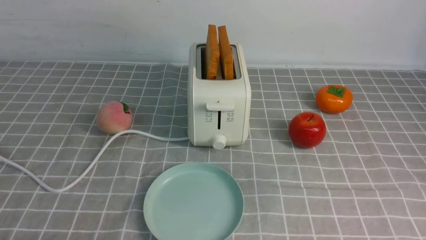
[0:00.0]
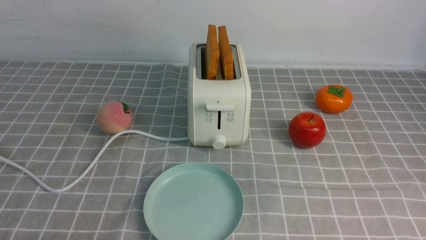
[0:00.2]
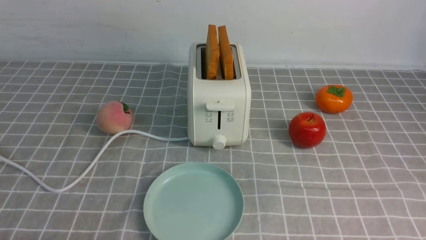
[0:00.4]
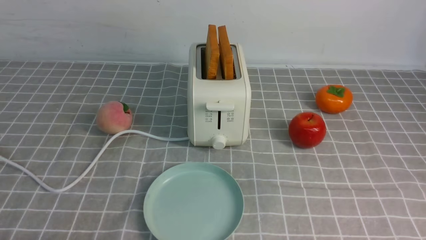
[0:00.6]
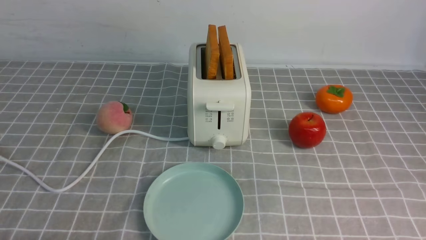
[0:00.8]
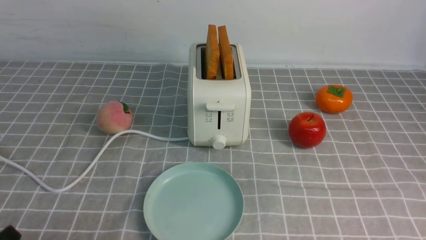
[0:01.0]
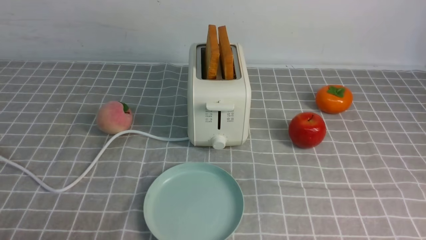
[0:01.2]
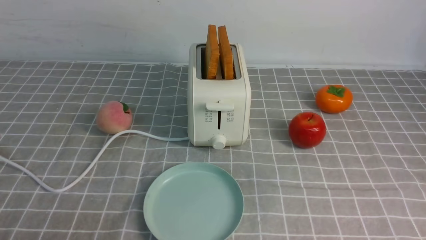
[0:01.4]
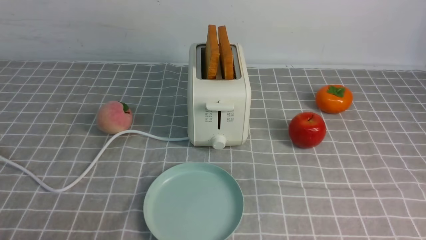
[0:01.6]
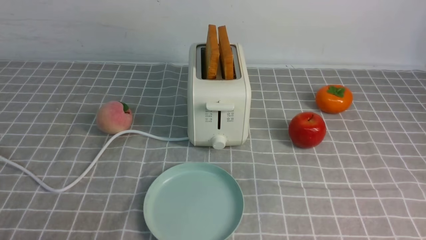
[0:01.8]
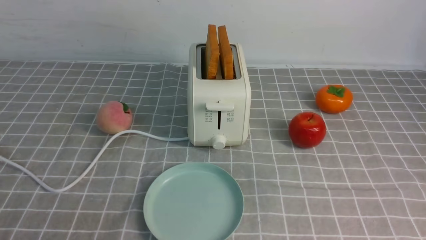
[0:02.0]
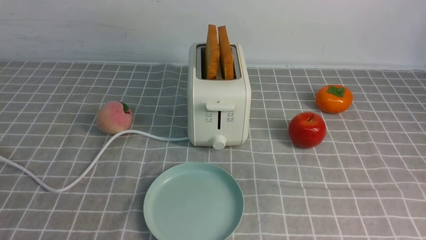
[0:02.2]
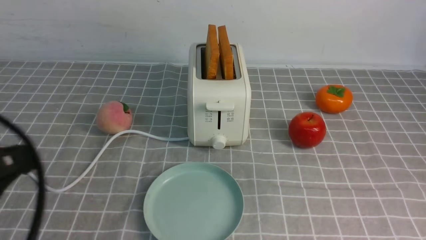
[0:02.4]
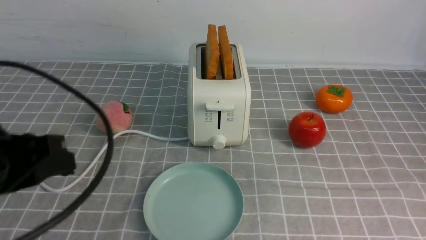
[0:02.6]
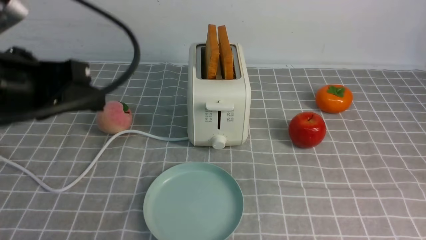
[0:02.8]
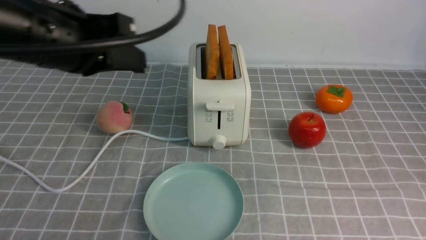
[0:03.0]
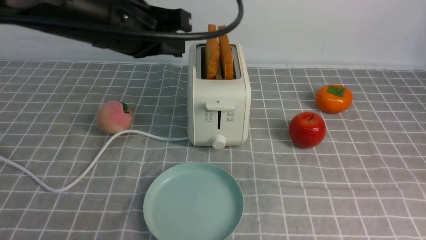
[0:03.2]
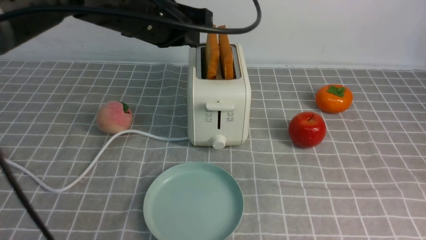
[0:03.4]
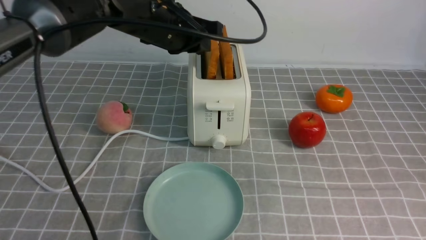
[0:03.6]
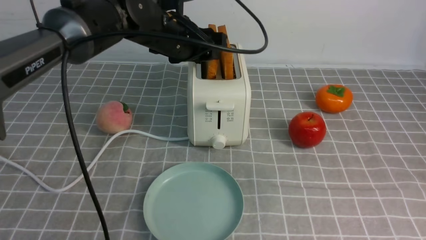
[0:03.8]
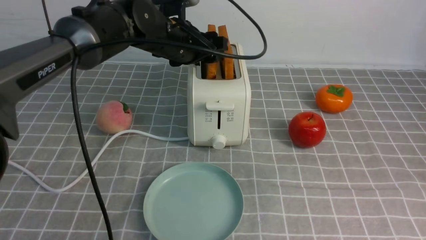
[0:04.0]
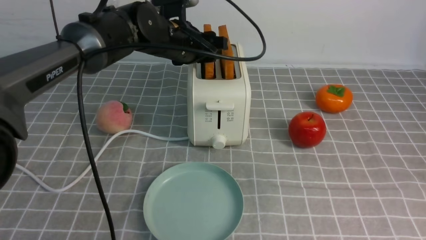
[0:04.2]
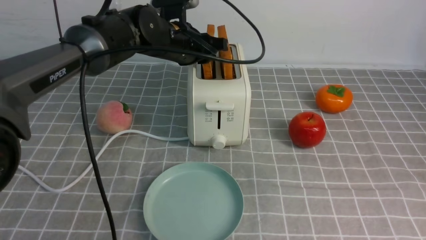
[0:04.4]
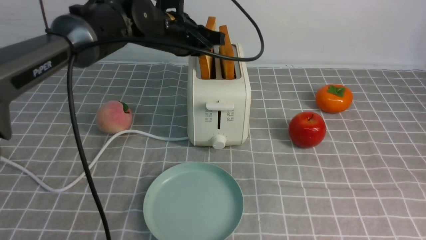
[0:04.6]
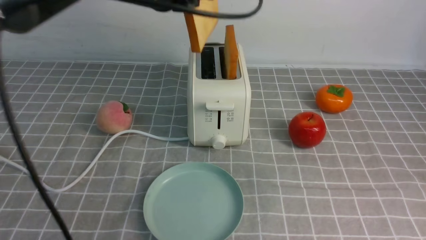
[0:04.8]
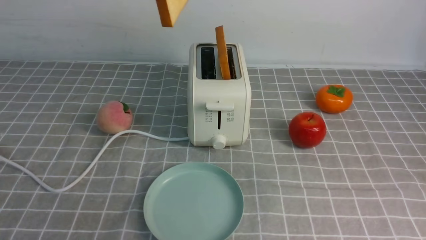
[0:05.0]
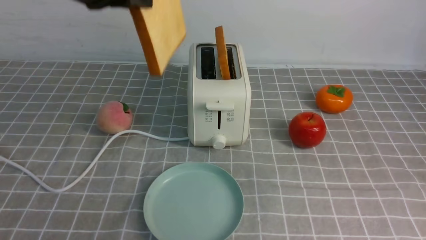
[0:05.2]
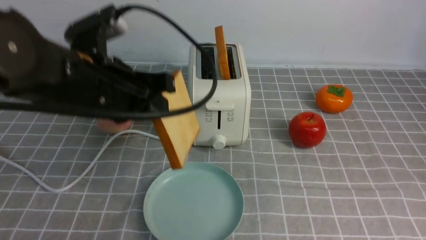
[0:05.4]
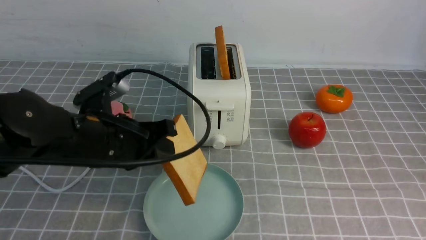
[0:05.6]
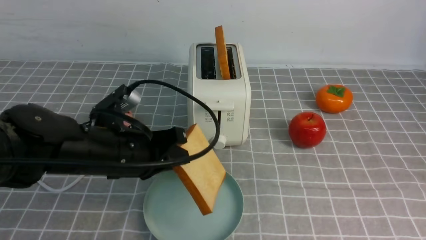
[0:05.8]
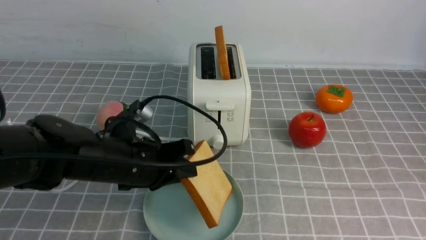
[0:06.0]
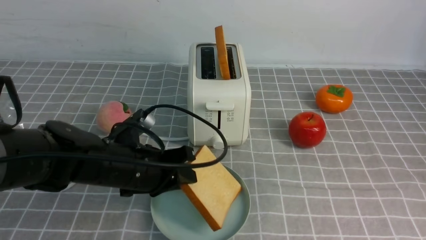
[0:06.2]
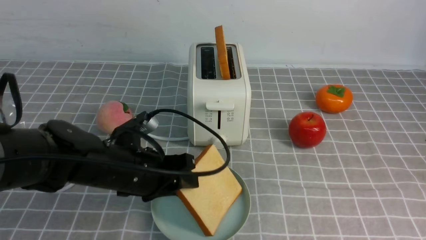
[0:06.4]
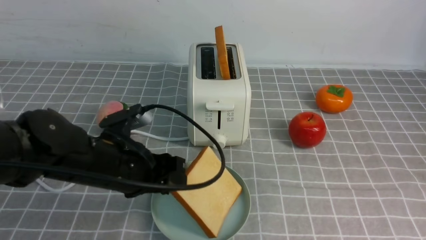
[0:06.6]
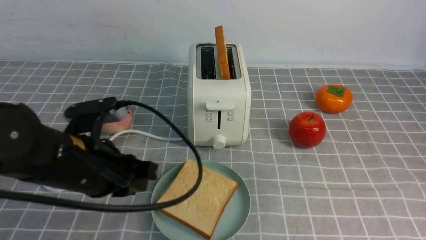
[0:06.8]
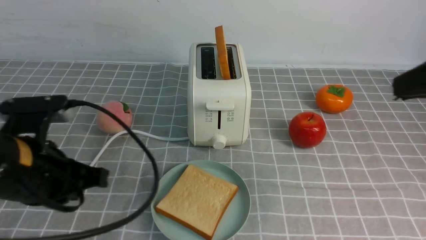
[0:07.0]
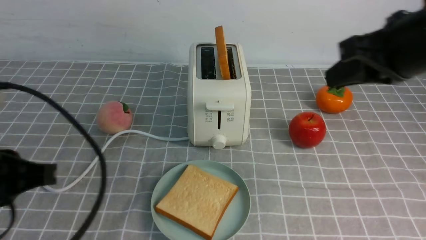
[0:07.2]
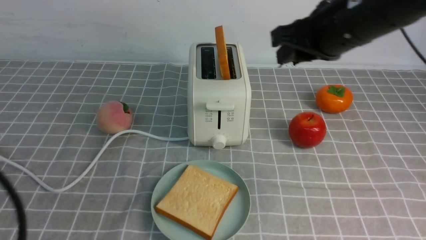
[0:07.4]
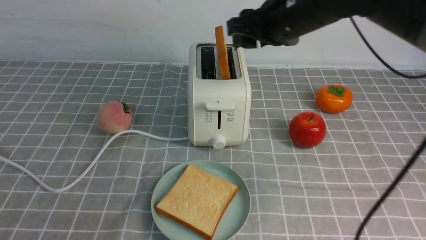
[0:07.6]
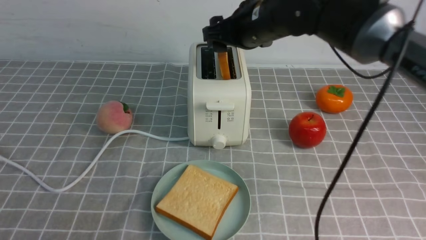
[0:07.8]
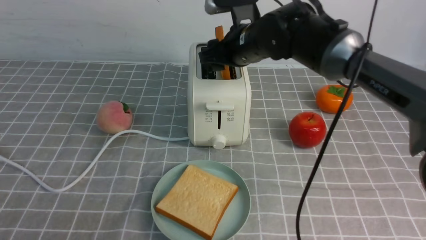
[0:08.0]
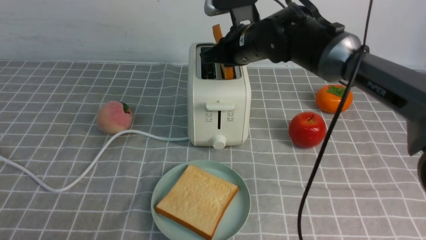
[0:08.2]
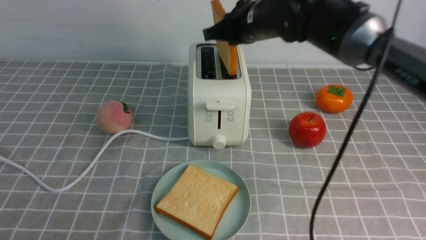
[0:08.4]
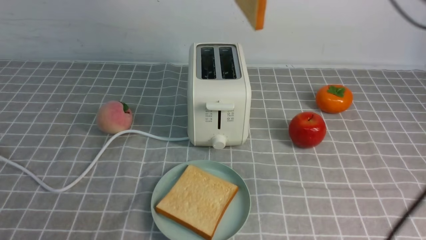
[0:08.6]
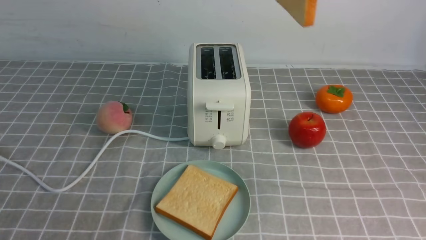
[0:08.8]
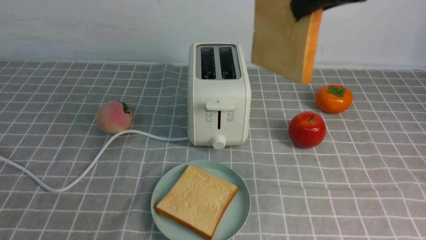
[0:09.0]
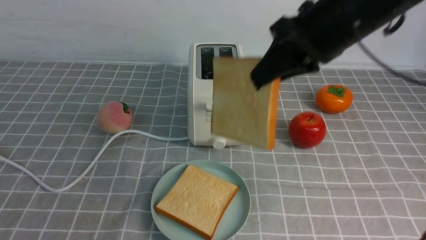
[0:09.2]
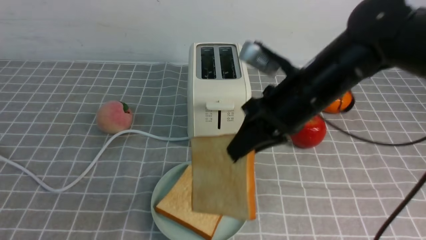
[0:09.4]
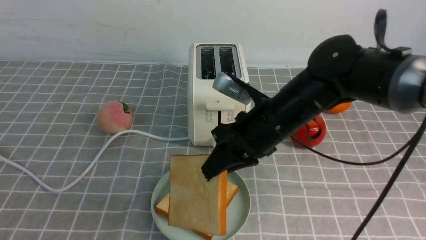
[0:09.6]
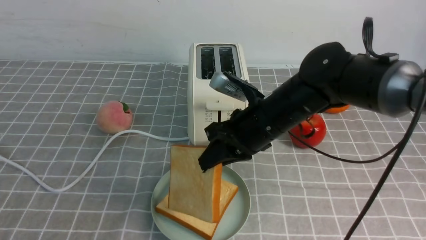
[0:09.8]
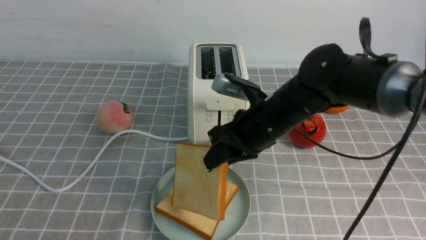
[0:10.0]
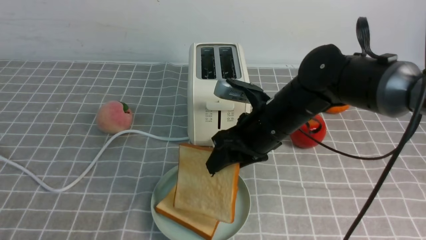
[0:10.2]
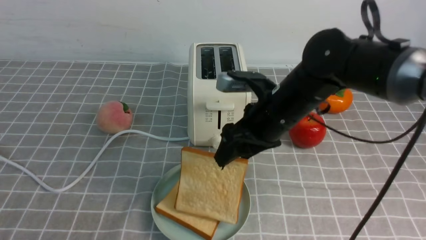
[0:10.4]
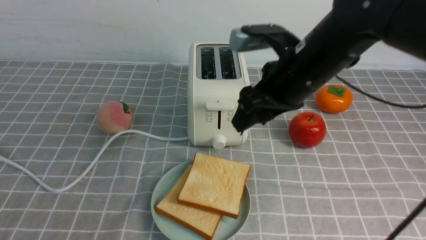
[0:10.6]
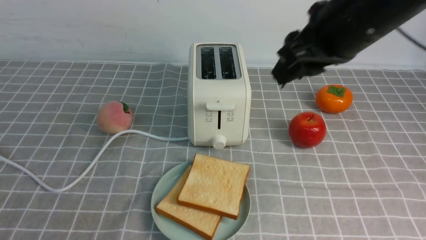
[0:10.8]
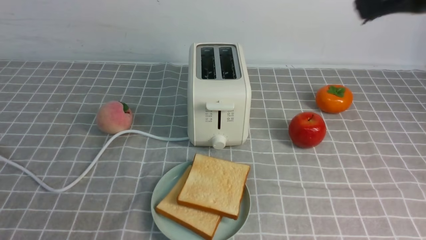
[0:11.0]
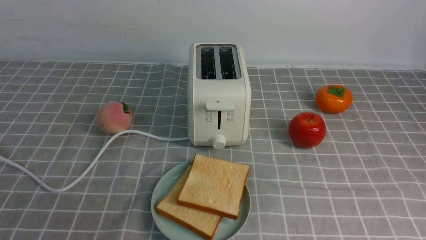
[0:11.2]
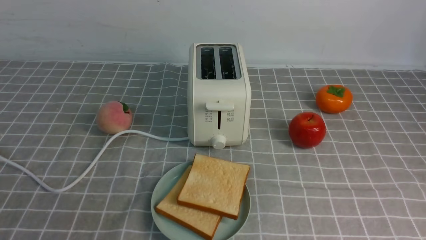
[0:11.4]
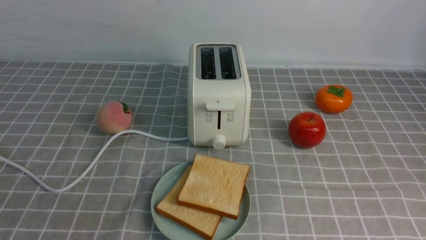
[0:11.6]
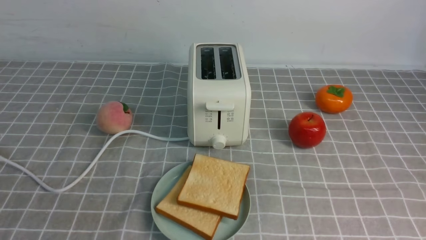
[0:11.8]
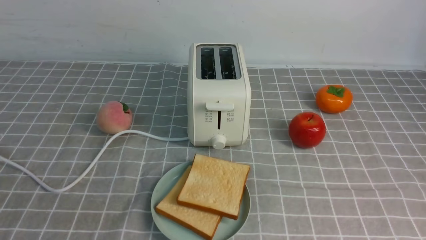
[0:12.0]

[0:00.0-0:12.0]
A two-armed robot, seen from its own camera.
Task of the whole recording: take toasted bread from bread machine on grey coffee table place on plate.
Step, 0:00.0 to 0:04.8: use the left arm to take out a slice of bread.
Step, 0:05.0 to 0:06.8: use the left arm to put a slice of bread into the empty plate.
Step, 0:07.0 to 0:08.6: use the right arm to take out a slice of bread.
Step, 0:08.8 to 0:10.6: use the right arm to put a slice of bread into the plate.
0:01.6 to 0:03.0: The left gripper moves forward, upward and to the right, roughly 30 cm, and closes up. The right gripper is displaced upward by some 20 cm, and closes.
0:03.0 to 0:04.4: The left gripper goes approximately 20 cm forward, to the right and downward, and opens its fingers.
0:04.4 to 0:06.0: The left gripper is displaced backward and downward by roughly 20 cm.
0:06.0 to 0:07.6: The left gripper shifts about 25 cm backward, to the left and upward, and opens, then closes again. Meanwhile the right gripper goes some 30 cm forward and to the left, and opens its fingers.
0:07.6 to 0:09.0: The right gripper moves backward and upward, some 10 cm, and closes its fingers.
0:09.0 to 0:10.4: The right gripper goes some 15 cm downward, and opens up.
0:10.4 to 0:12.0: The right gripper moves backward and to the right, roughly 35 cm, and closes up.

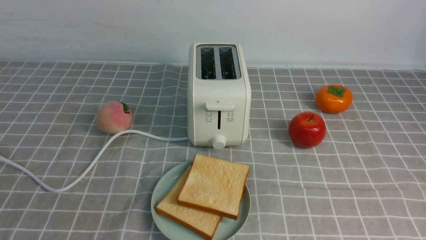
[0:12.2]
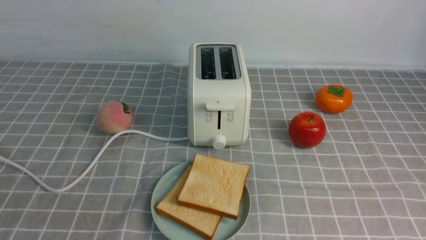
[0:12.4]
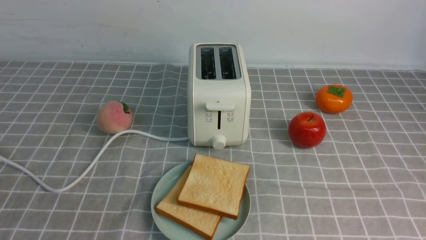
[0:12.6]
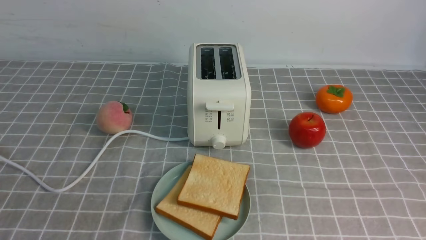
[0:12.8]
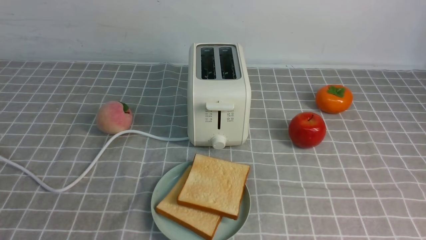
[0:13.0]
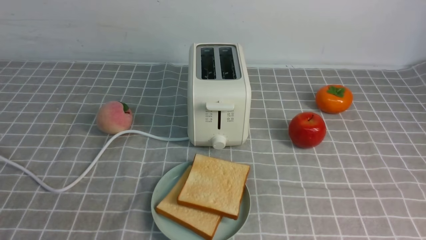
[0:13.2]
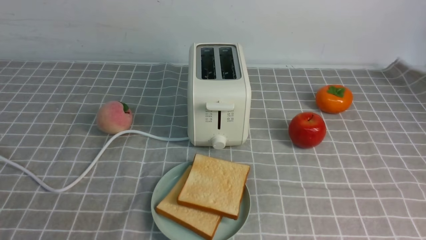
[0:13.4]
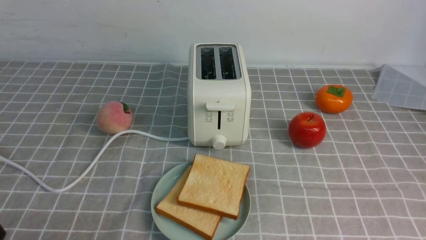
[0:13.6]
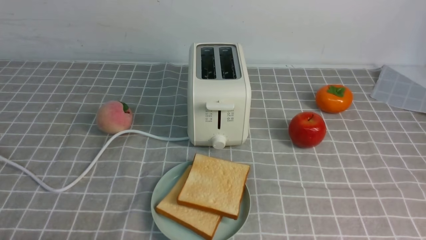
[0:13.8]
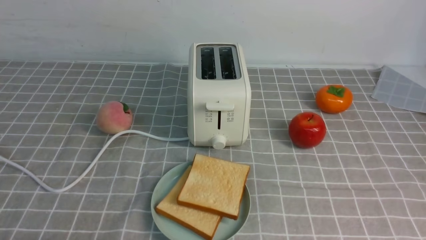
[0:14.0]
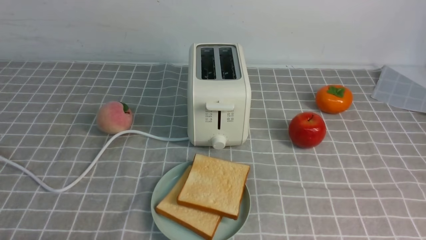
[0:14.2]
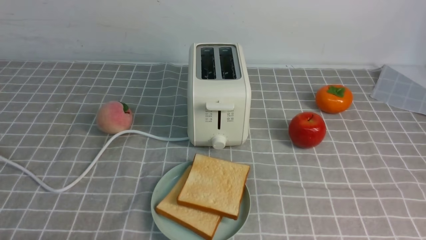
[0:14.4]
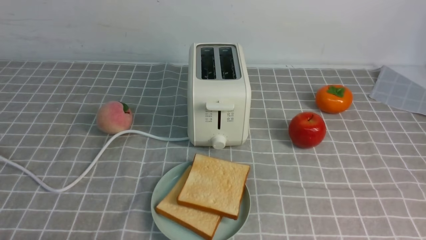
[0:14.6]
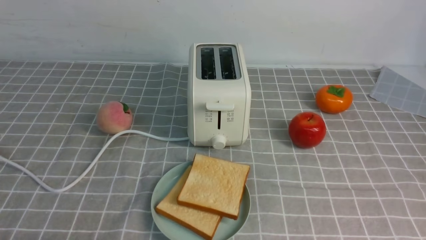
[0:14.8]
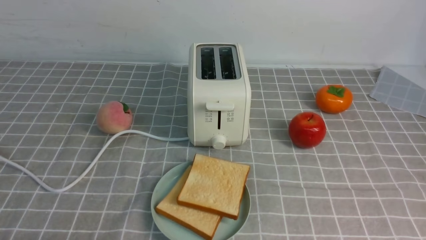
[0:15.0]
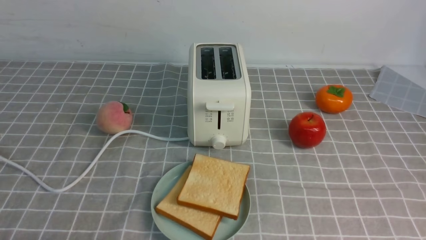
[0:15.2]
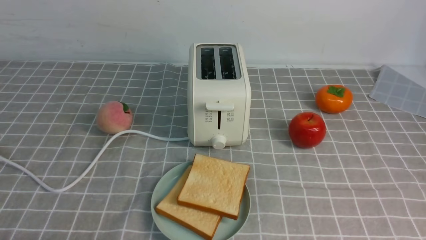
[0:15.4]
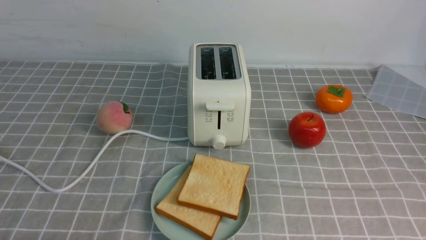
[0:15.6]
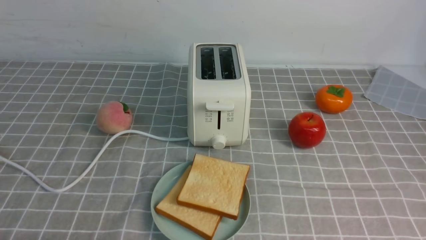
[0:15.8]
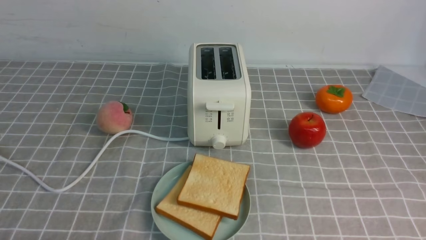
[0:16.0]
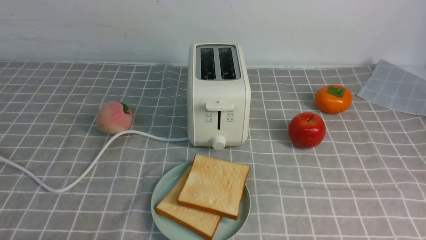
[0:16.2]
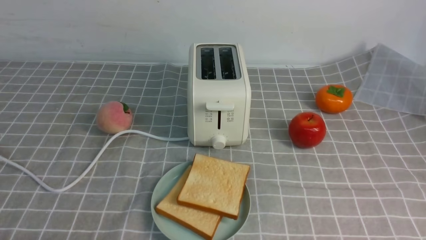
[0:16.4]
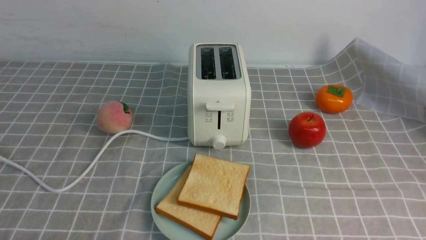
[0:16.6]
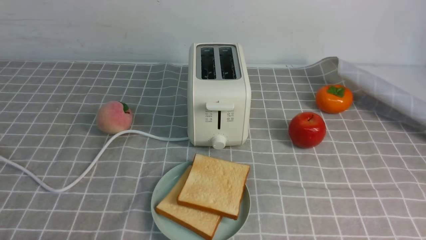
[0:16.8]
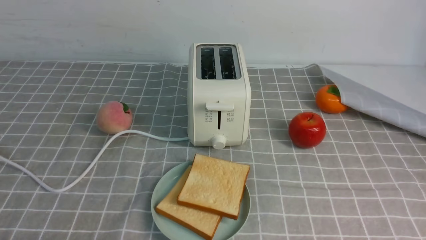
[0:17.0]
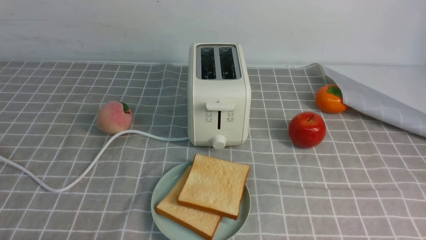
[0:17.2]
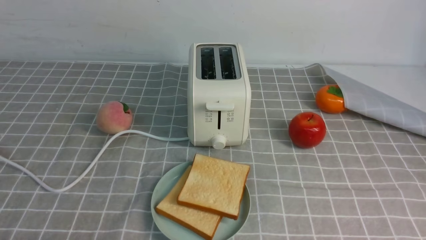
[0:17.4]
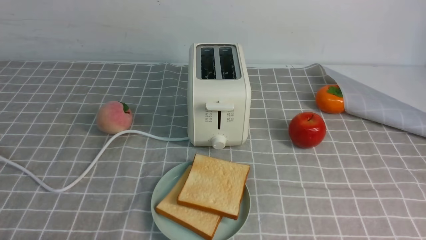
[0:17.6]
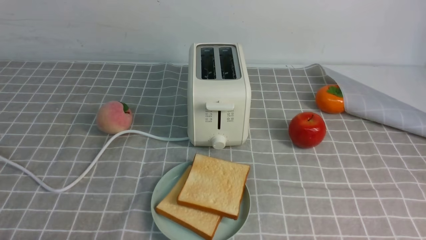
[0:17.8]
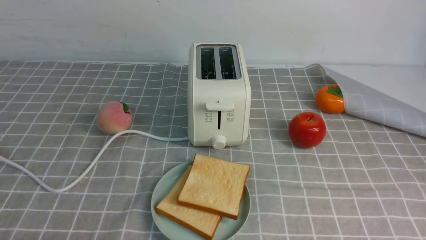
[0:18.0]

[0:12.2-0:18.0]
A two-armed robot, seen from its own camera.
Task of the whole recording: take toasted bread from bread machine on grey coffee table place on plate.
0:15.0 to 0:16.6: The right gripper travels downward by approximately 15 cm.
0:16.6 to 0:18.0: Both grippers stay put.
